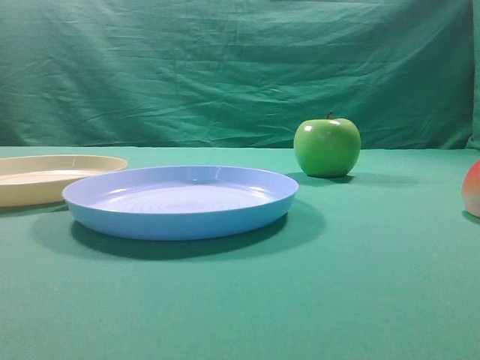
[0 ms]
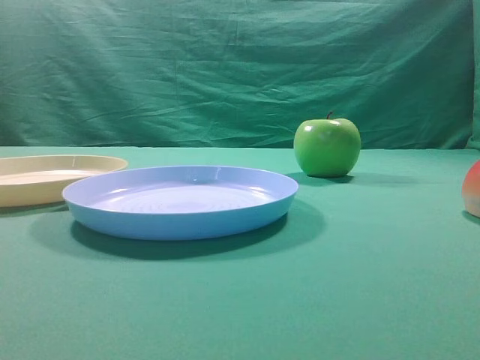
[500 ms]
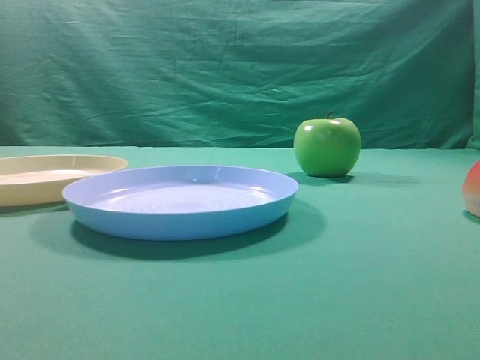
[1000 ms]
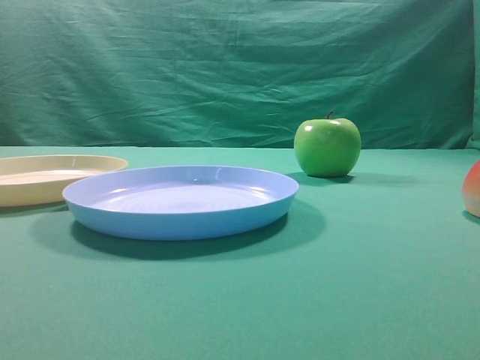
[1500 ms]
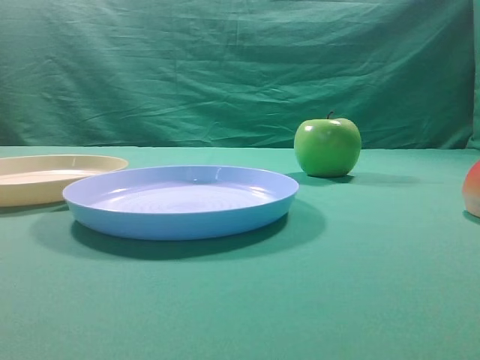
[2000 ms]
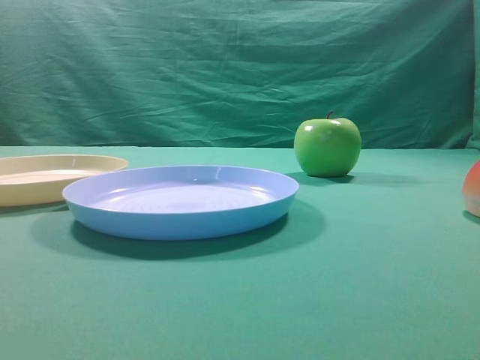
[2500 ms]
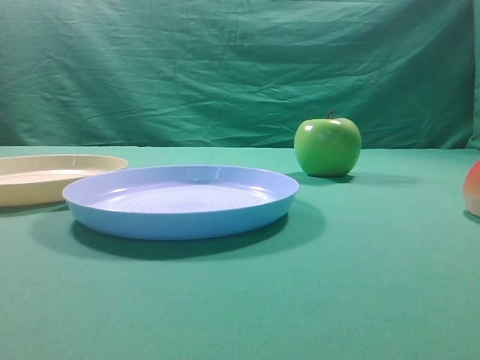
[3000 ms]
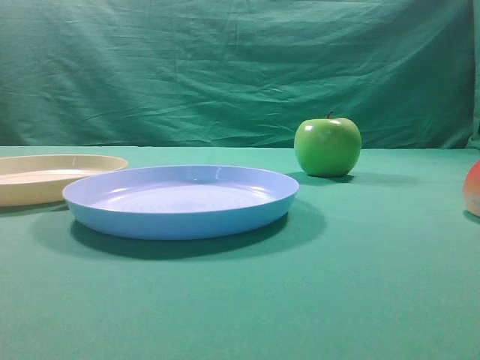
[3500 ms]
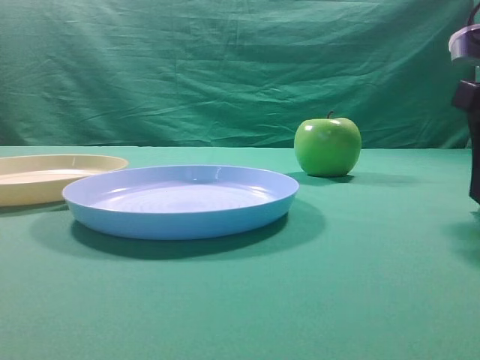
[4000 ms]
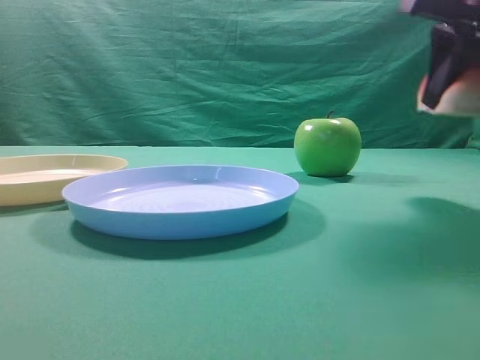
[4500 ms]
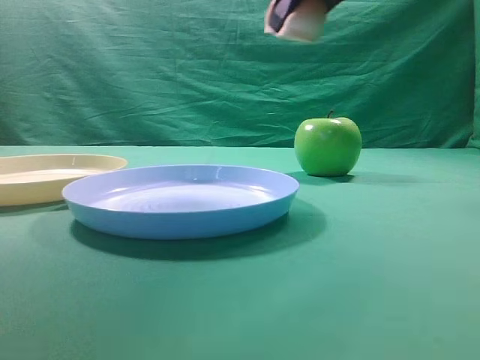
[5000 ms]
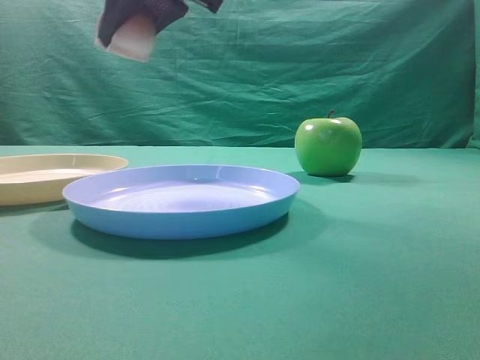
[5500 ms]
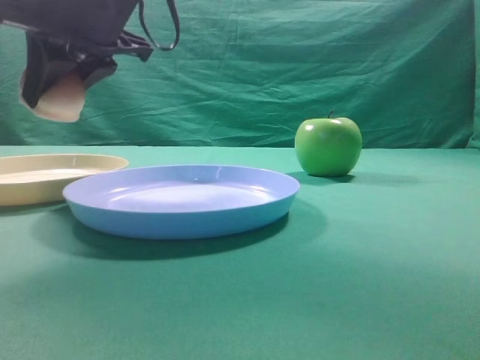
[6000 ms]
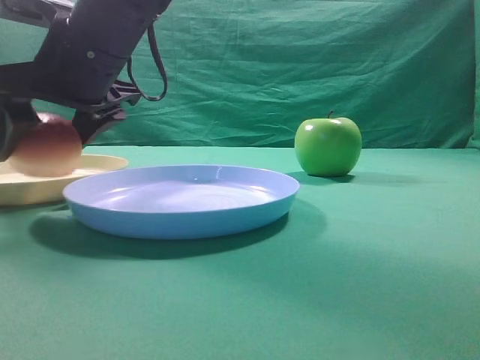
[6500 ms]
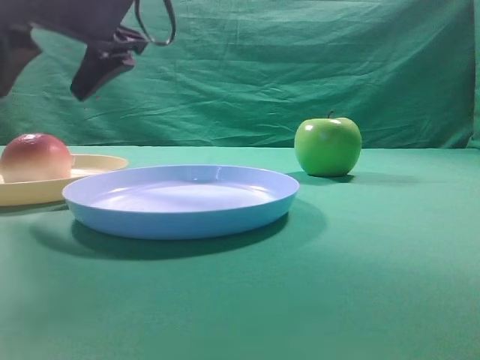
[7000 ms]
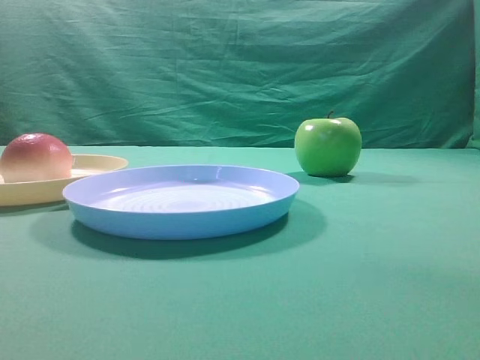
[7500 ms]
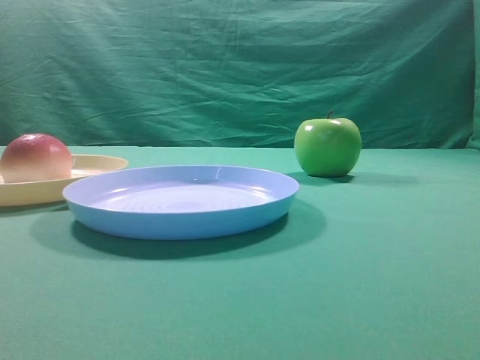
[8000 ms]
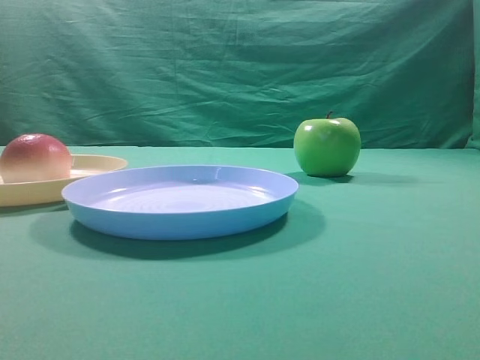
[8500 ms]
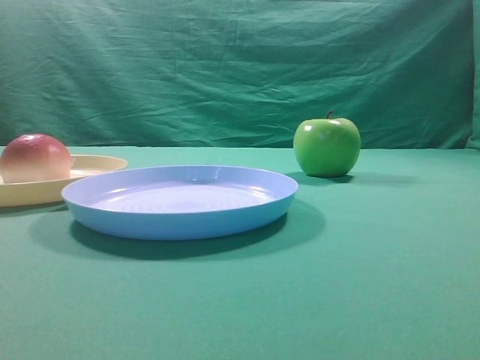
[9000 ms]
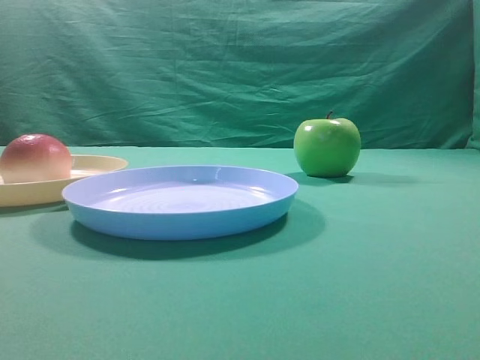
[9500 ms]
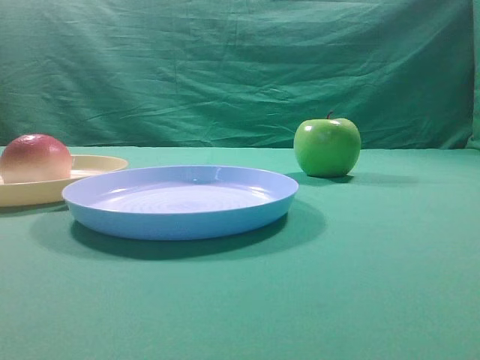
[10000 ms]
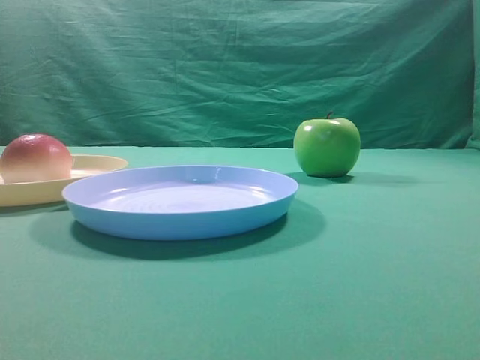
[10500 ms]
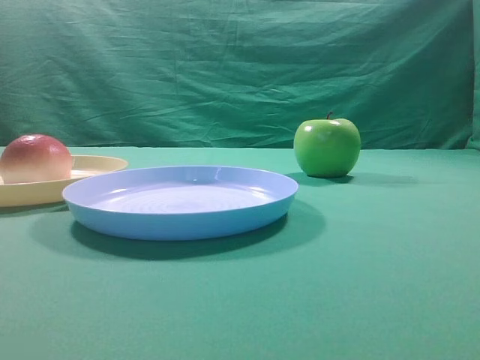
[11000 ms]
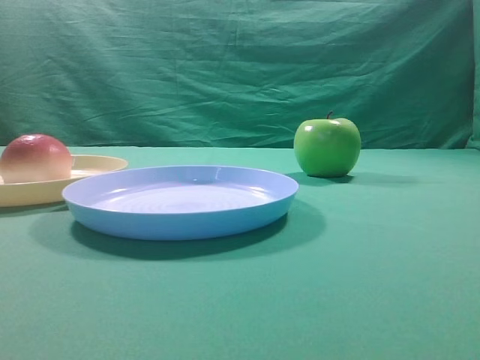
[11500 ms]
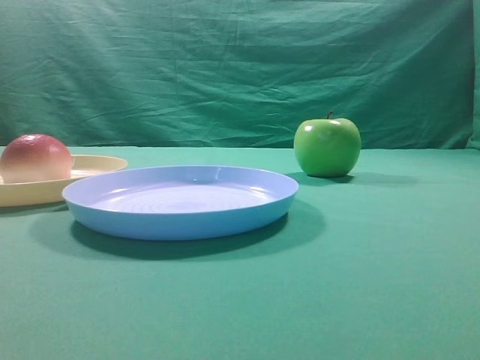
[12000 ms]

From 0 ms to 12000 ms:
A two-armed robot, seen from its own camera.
Step, from 4500 ms to 6500 ms: Place the picked object on the yellow plate.
